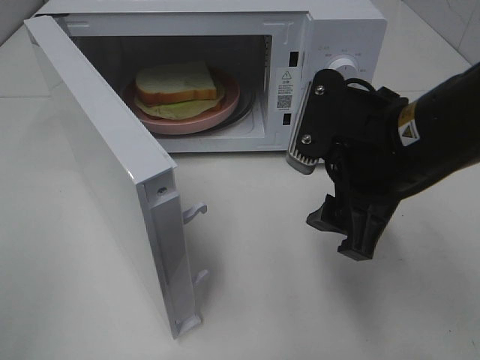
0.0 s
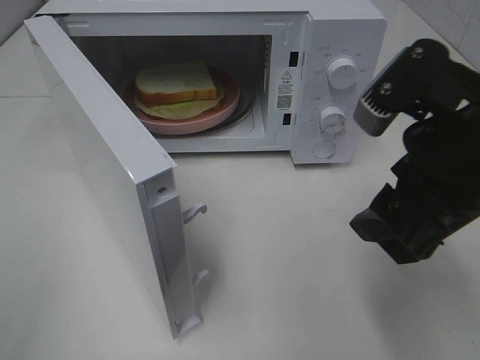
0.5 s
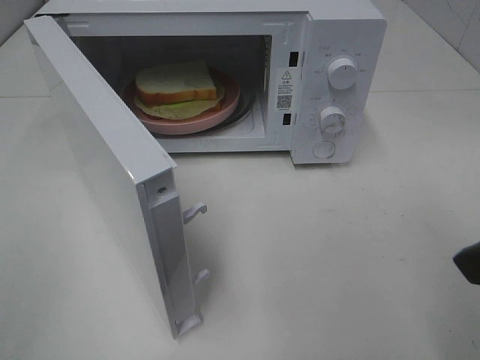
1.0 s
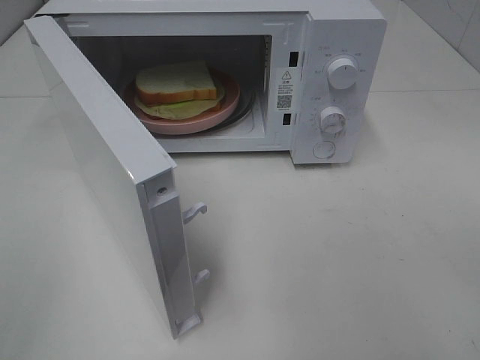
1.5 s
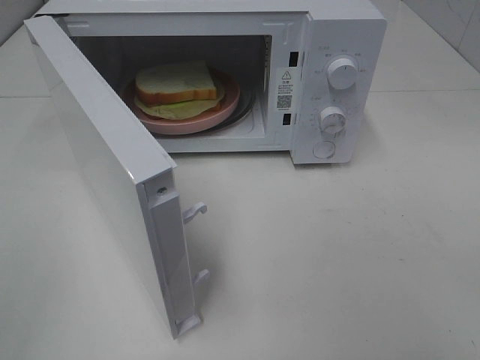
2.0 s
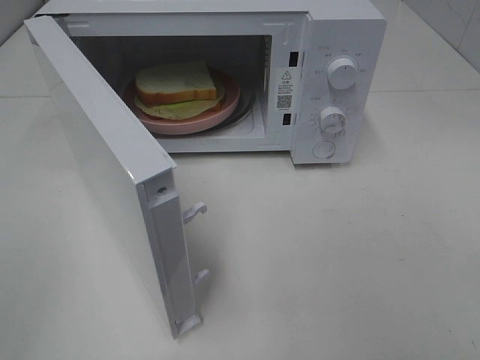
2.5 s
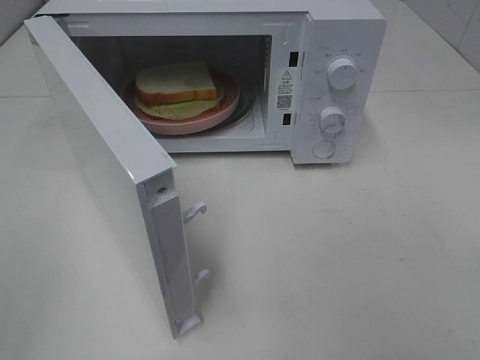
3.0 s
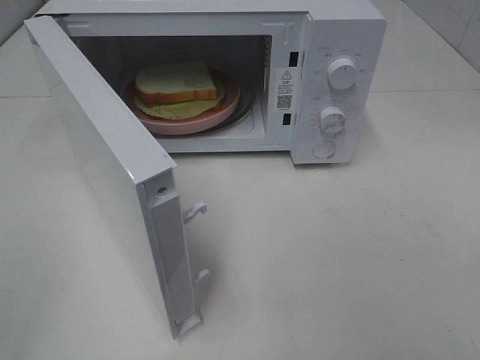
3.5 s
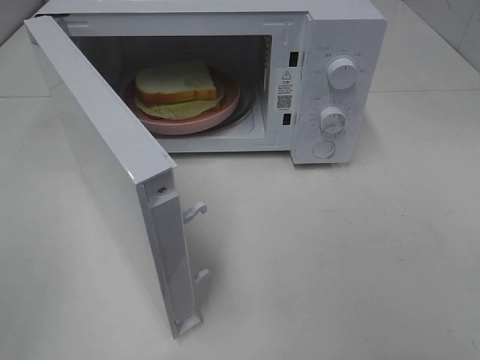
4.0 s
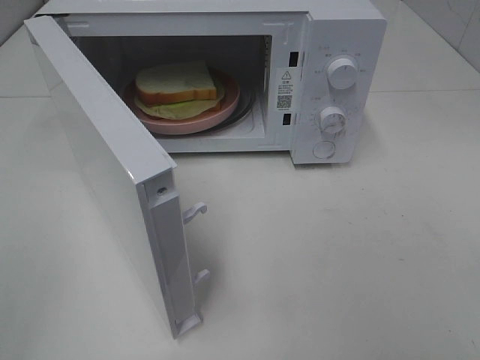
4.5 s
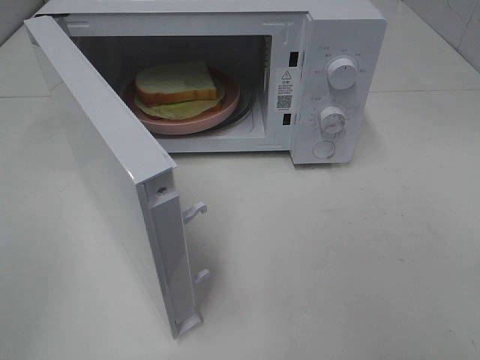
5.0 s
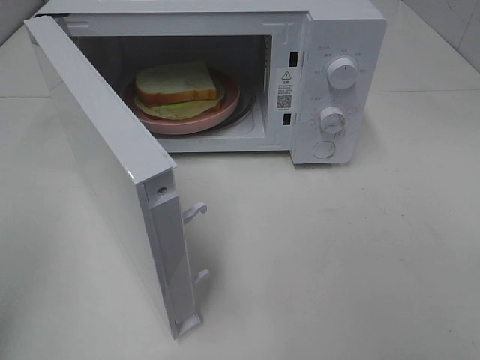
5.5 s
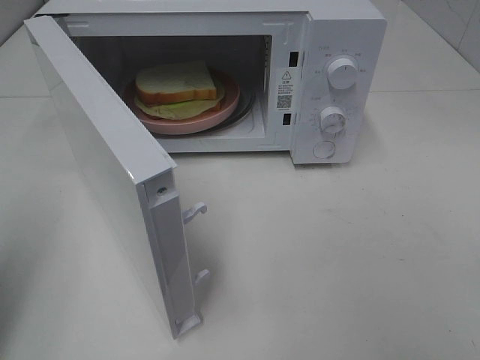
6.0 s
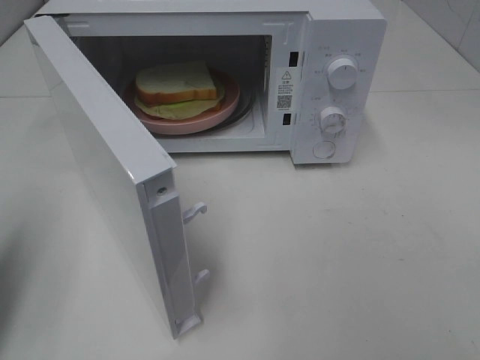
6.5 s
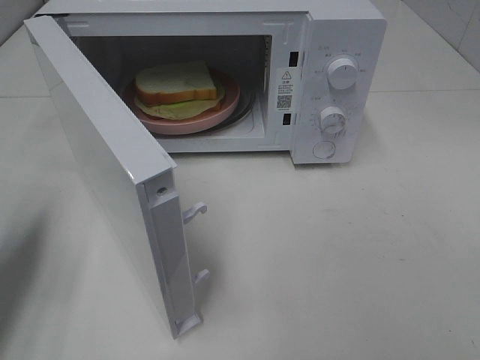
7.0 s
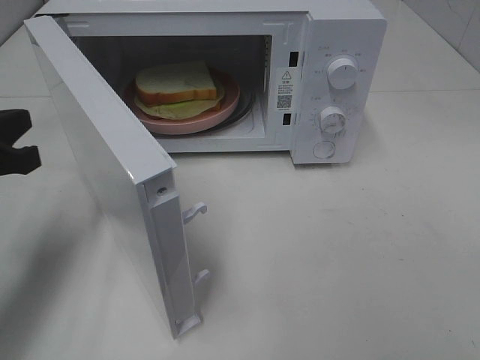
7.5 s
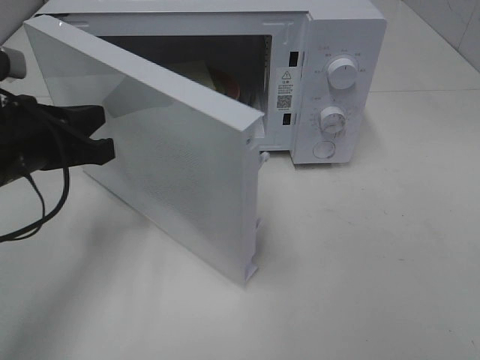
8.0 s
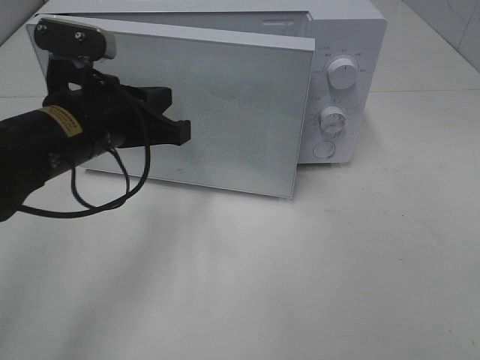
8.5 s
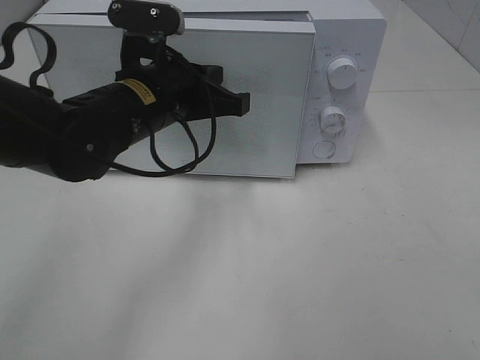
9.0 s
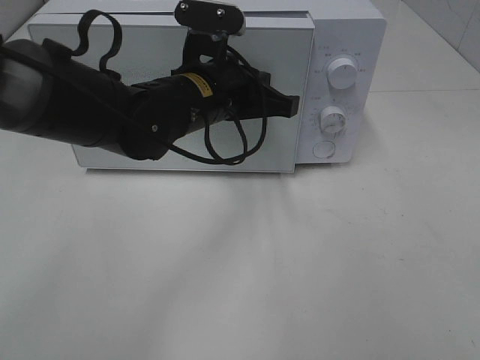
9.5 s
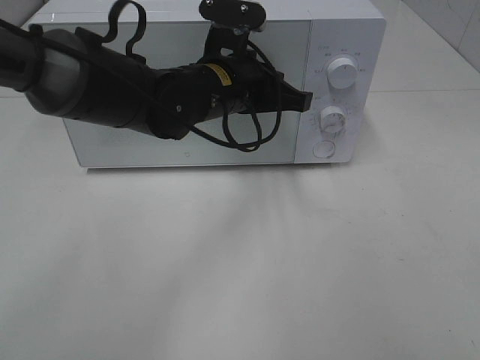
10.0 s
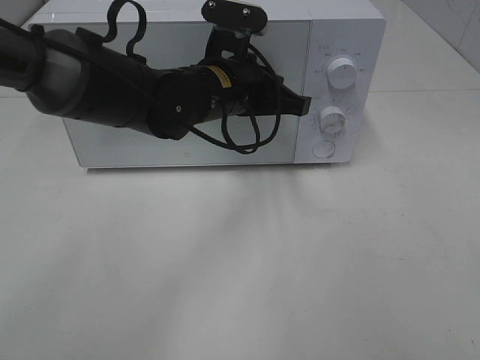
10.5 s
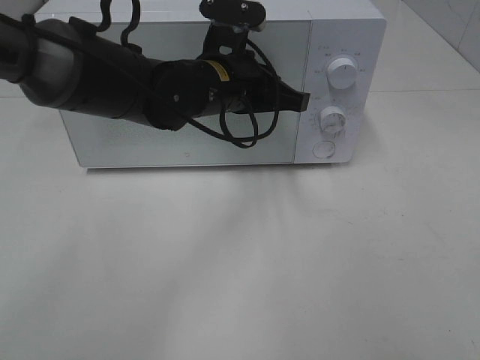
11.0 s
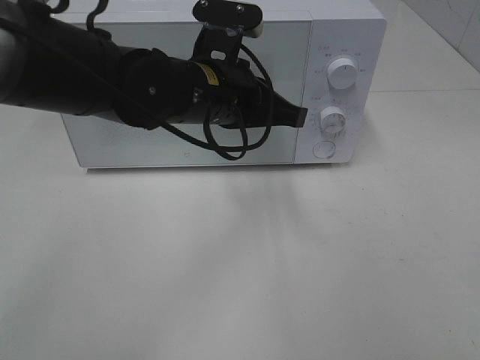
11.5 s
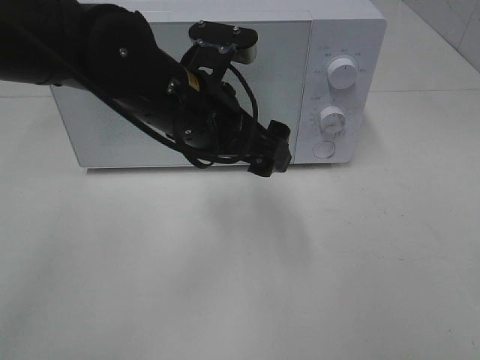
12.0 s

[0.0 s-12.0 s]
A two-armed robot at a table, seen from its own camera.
Task of the whole recording: Heat Sandwich.
Step, 0.0 to 11.5 s: Left hand: close the microwave door.
0.0 to 2.0 s: The right gripper moves backward and to the right, approximately 25 cm.
4.0 to 6.0 s: The left gripper is displaced forward by approximately 10 cm, and closes.
6.0 to 8.0 s: The left gripper goes roughly 20 cm forward, to the right and downward.
8.0 to 10.0 s: The left gripper heads to the right and forward, covering approximately 20 cm.
10.0 to 12.0 s: The left gripper heads backward, covering approximately 5 cm, and opens.

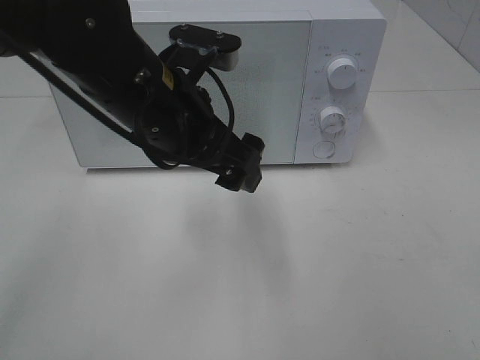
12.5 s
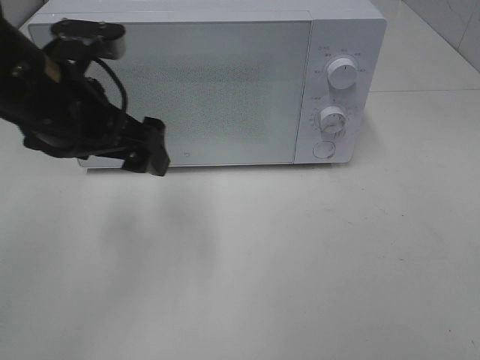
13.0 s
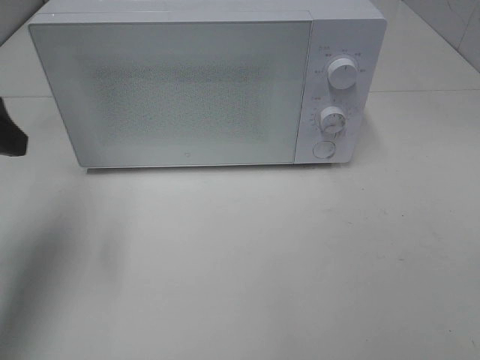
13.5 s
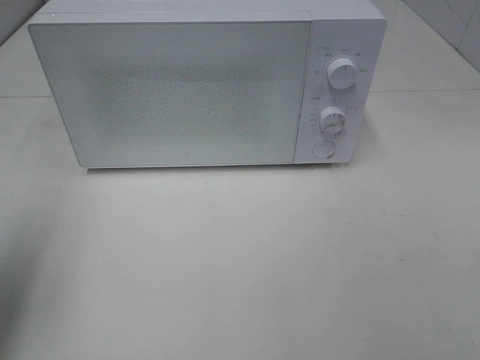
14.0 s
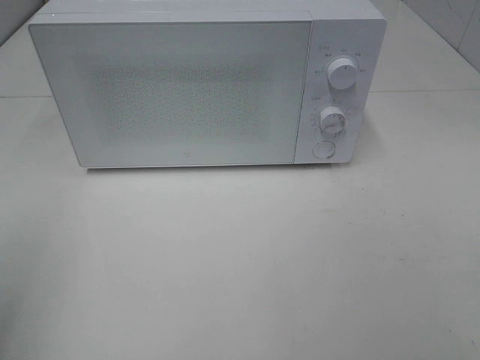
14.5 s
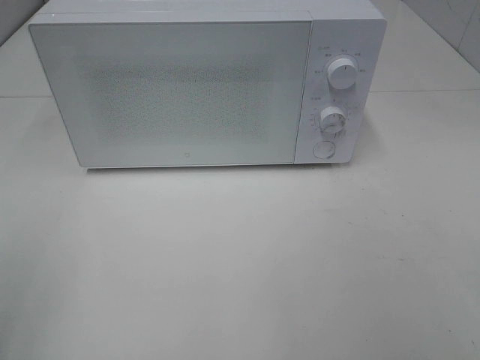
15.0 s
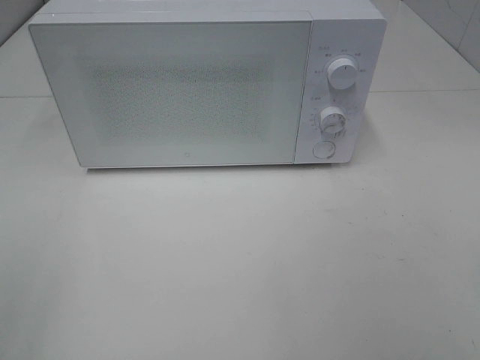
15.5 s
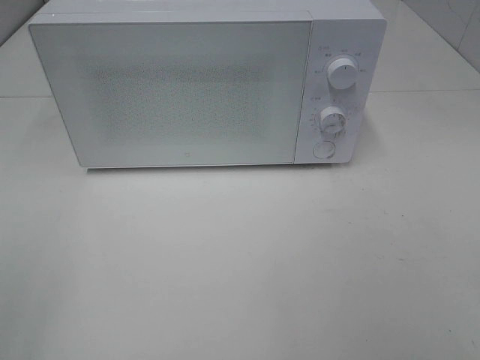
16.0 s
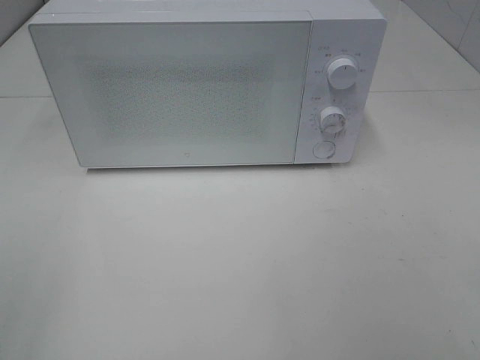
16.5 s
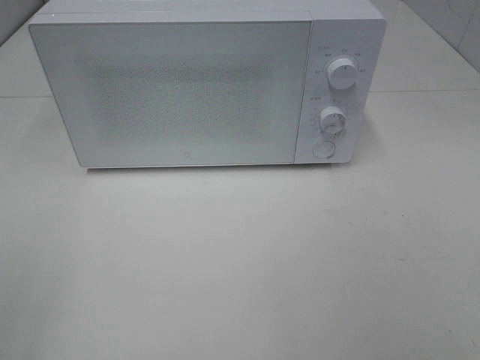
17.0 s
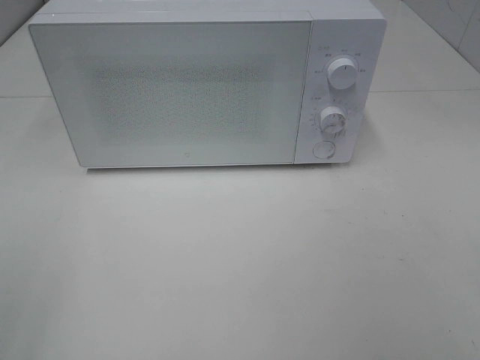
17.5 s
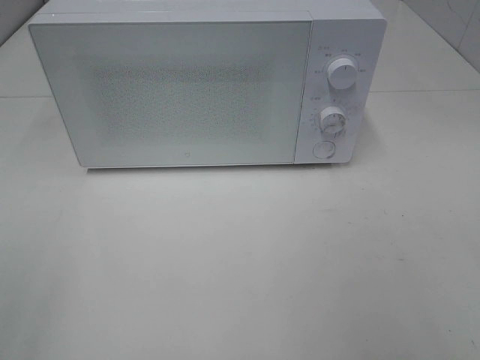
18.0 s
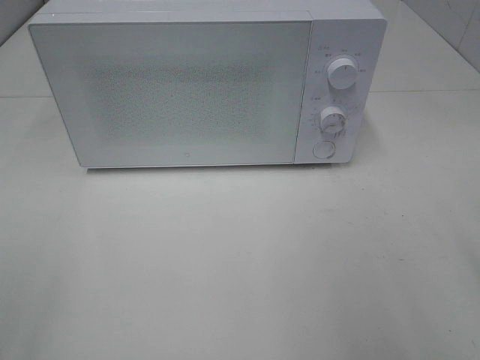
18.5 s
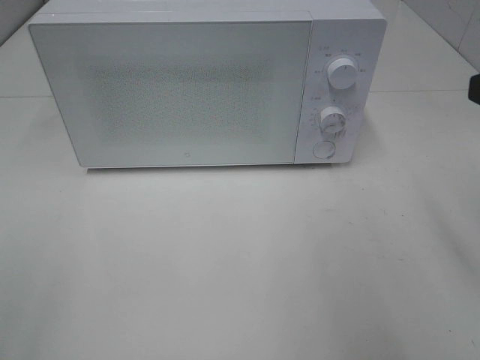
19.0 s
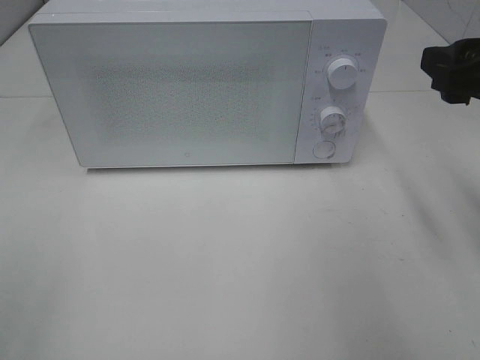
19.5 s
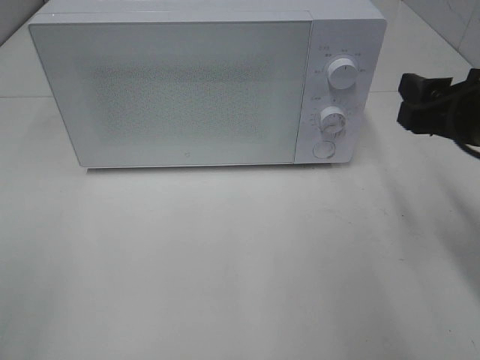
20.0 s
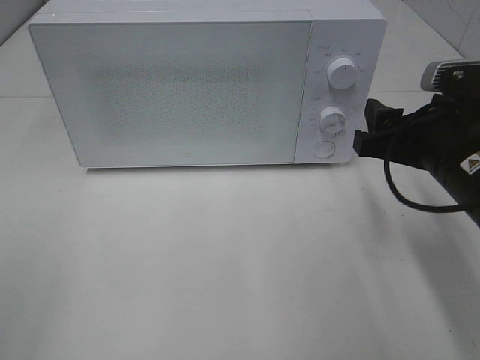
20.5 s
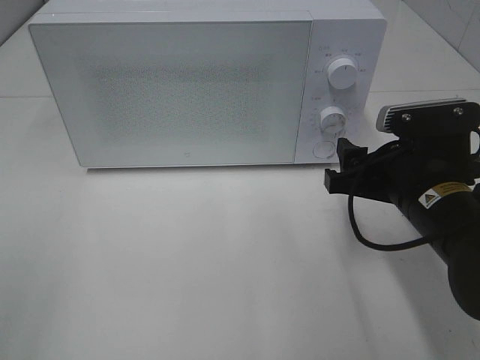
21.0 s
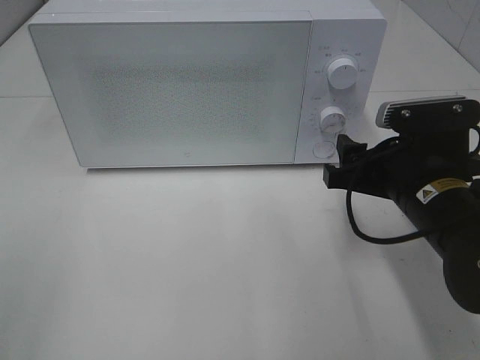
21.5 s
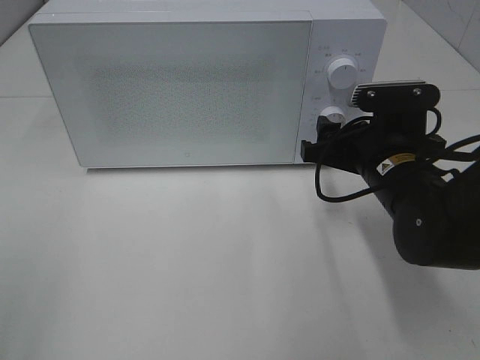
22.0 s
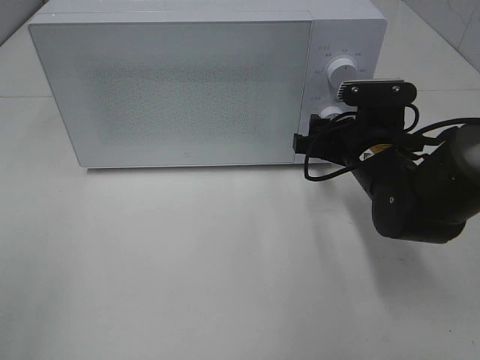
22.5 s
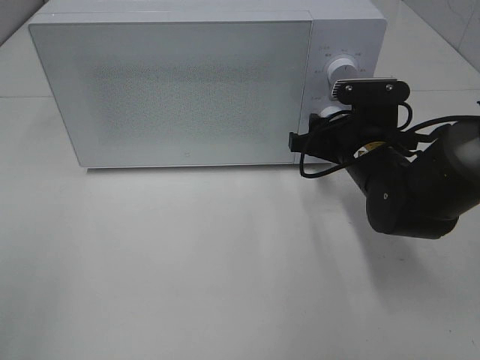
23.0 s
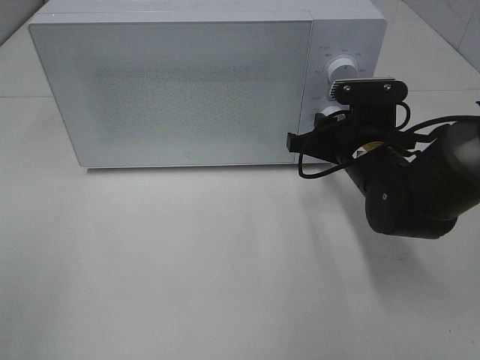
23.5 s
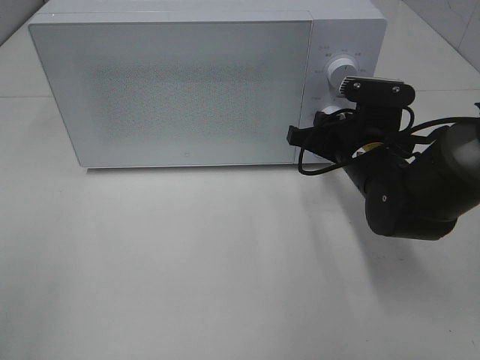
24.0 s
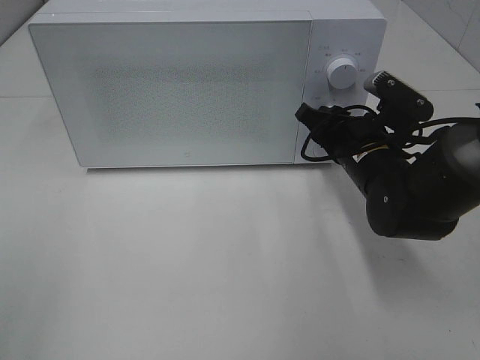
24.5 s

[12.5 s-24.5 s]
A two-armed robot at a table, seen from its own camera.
Task of the whole recording: Heat Sandwich.
12.5 to 14.5 s: The left gripper heads to the left and backward, covering approximately 35 cm.
18.5 to 20.5 s: The right gripper moves downward, forward and to the left, roughly 20 cm.
20.5 to 22.5 s: The right gripper is displaced forward and downward by some 10 cm.
22.5 to 24.5 s: The right gripper closes.

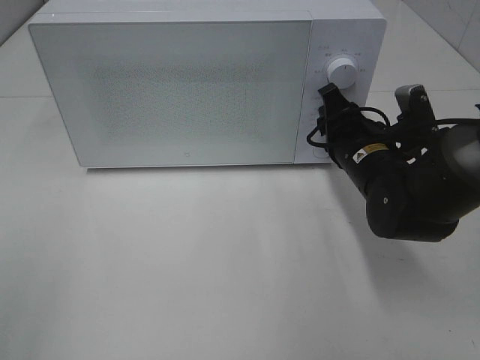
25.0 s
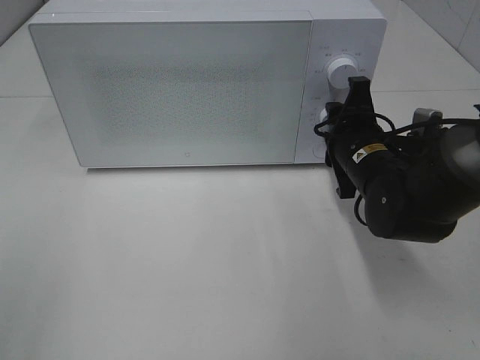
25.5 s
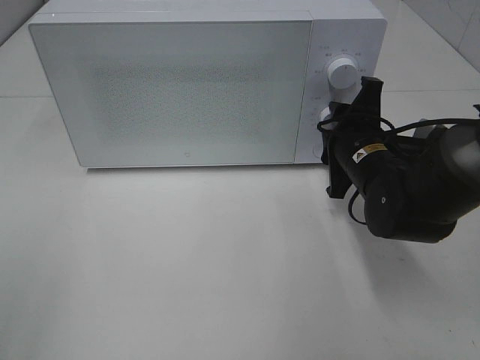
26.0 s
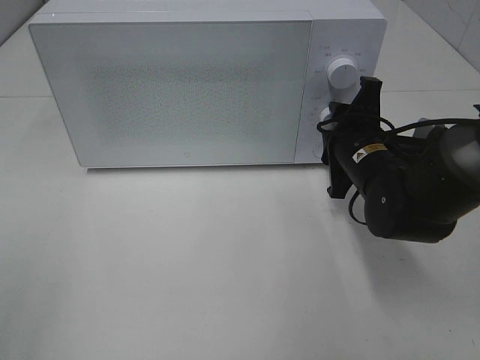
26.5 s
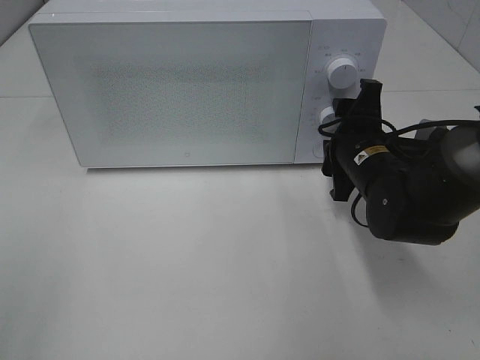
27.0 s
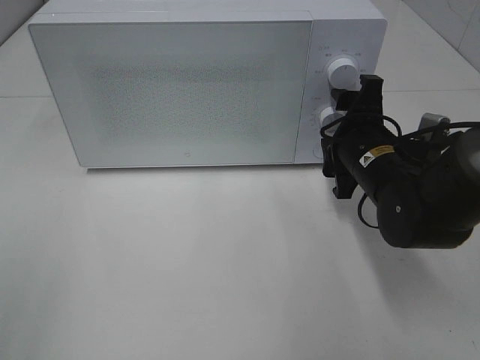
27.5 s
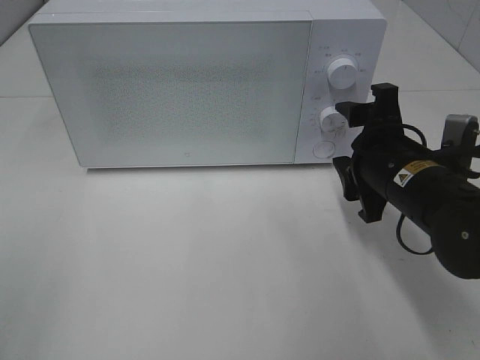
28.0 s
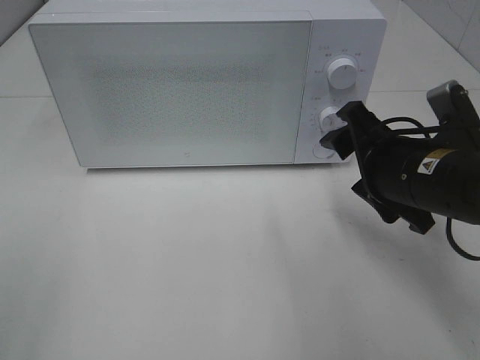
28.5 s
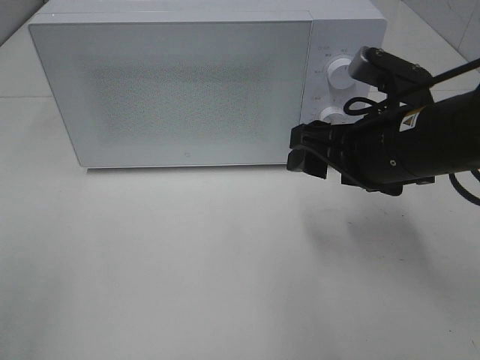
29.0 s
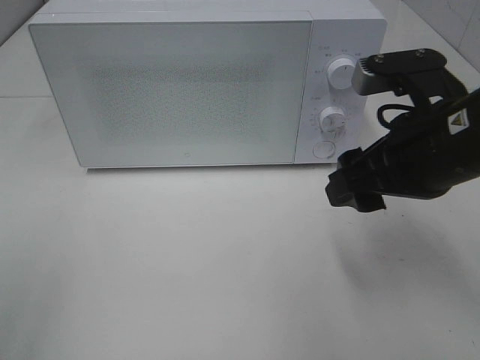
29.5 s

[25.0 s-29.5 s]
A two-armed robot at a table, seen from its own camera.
Task of the whole recording: Heat Sandwich.
Step, 25.0 to 27.5 s: Right hand: twist timer button.
27.0 to 29.5 s: The right gripper moves upward and backward, some 15 cm.
